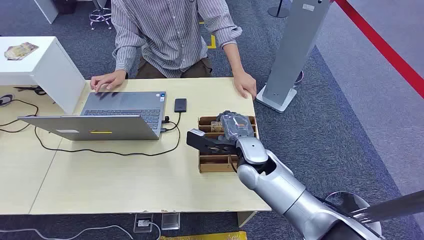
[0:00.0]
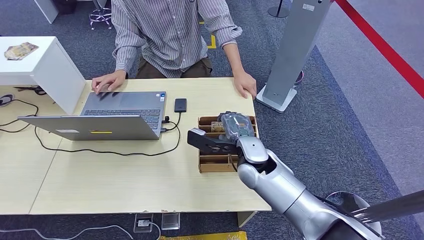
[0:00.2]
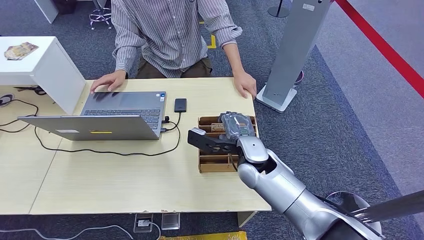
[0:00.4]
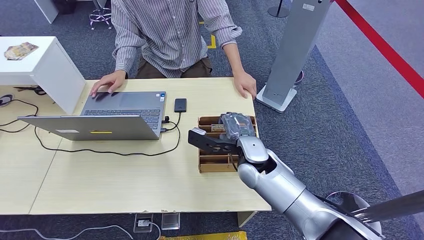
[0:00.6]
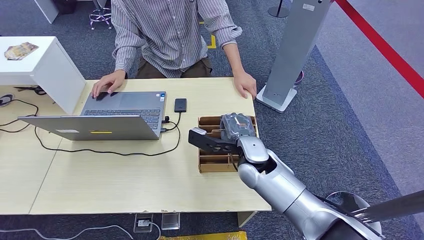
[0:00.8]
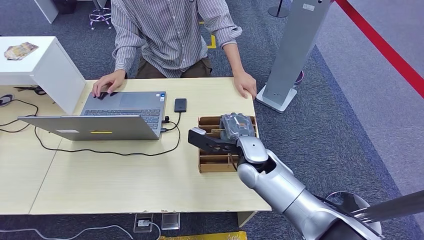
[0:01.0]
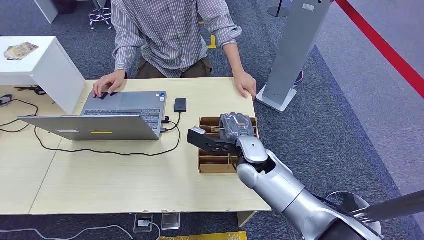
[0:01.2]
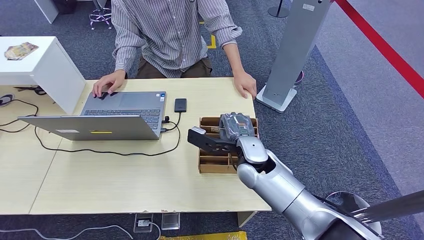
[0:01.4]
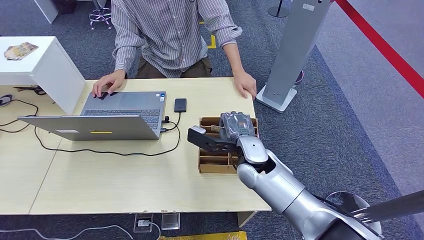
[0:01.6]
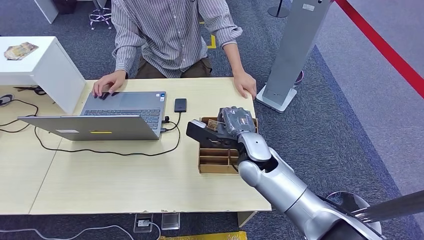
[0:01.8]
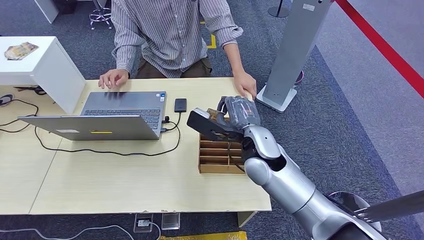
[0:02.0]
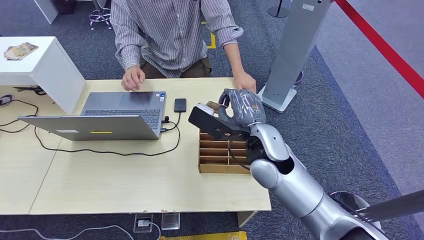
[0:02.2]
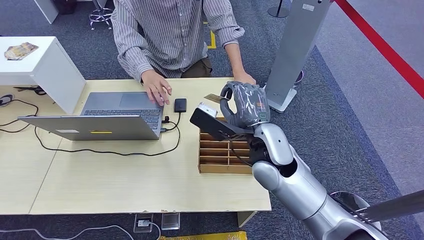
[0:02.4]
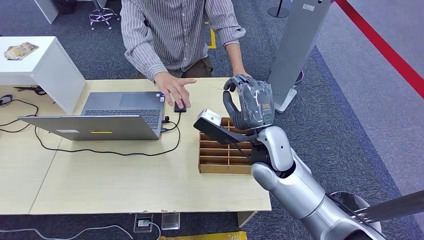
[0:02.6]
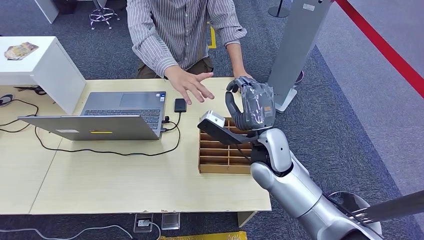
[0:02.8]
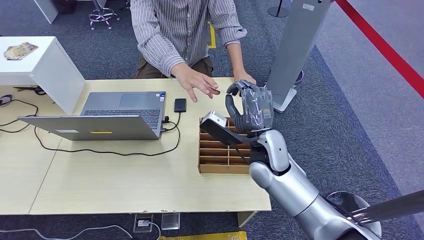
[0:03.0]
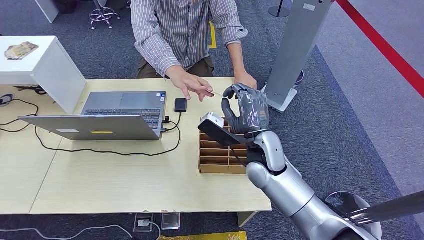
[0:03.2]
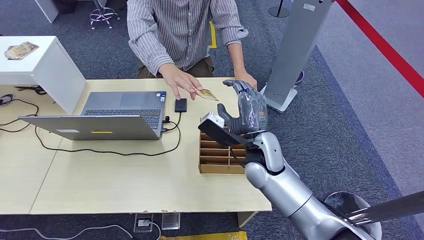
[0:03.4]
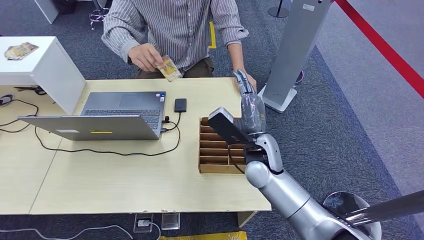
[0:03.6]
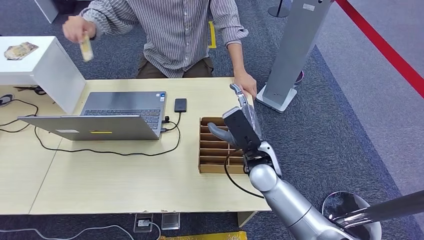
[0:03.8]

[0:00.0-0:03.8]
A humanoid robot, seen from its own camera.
Step, 0:00.0 to 0:02.0: Pick up the key card from the card box.
Step, 0:02.8 to 0:03.8: Hand the key card to the target.
0:01.2 to 0:02.6: The right hand travels upward by some 5 cm.
0:02.6 to 0:03.8: The right hand shifts about 5 cm downward.
